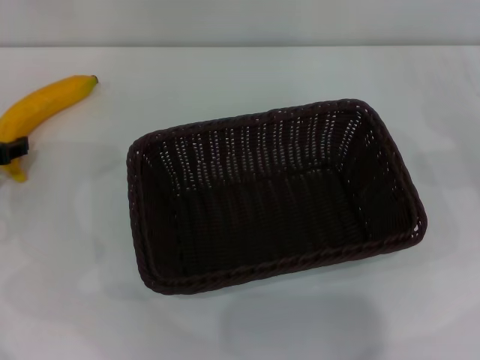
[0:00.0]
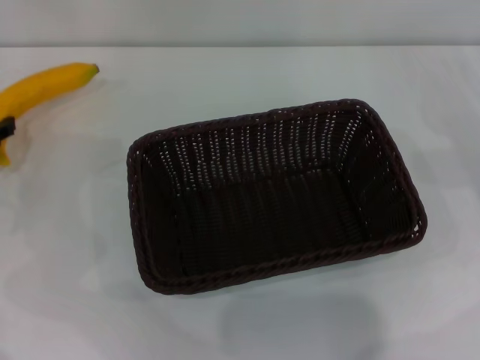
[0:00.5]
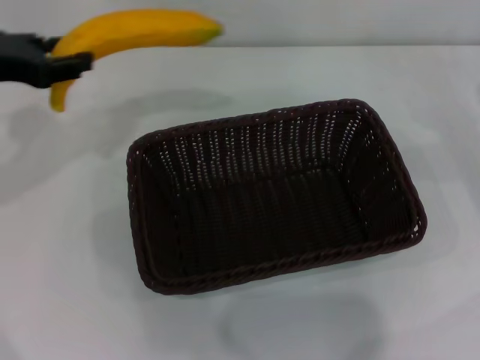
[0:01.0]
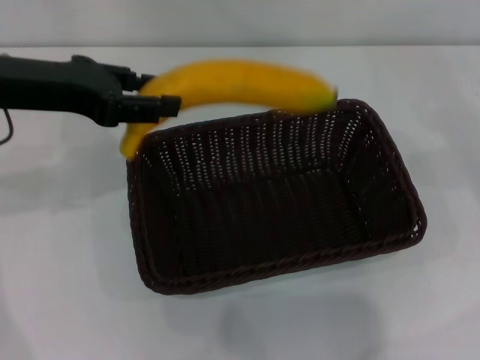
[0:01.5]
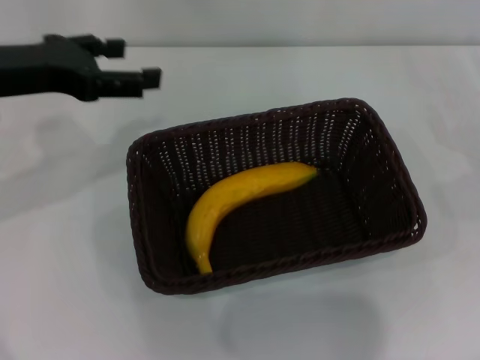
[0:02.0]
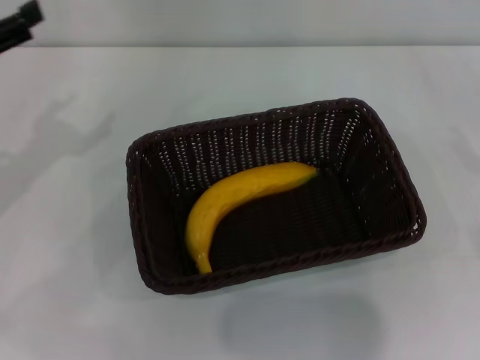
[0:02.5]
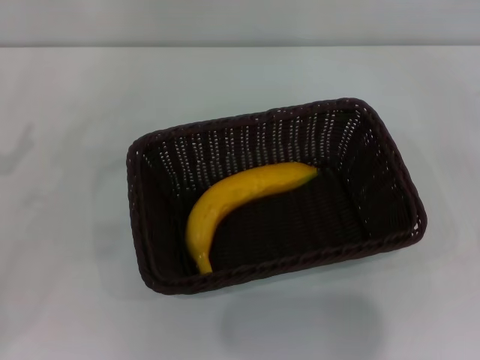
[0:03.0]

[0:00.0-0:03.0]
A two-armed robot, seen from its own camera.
Step, 0:01.0 to 0:02.0: Place the banana into the dark basket with the left gripper.
0:00.0 to 0:01.5: The left gripper shifts about 20 cm upward and to the right, and closes.
0:01.5 to 0:03.0: The left gripper shifts roughly 20 cm to the left, downward and backward, and opens its fingers. The right gripper is displaced backward and to the right by roughly 10 cm.
